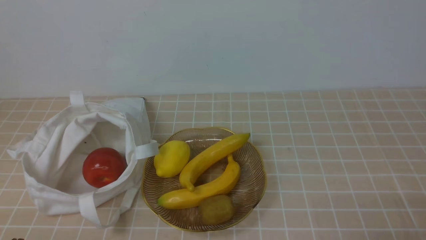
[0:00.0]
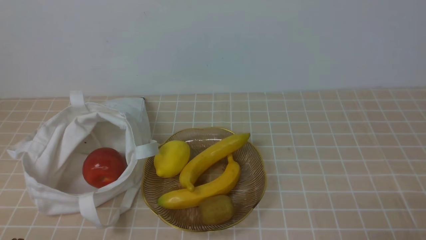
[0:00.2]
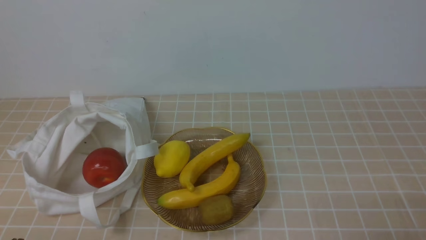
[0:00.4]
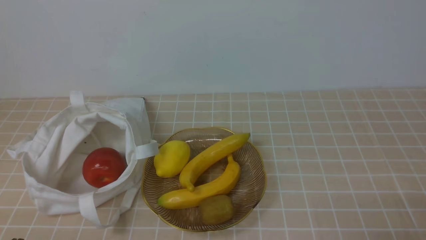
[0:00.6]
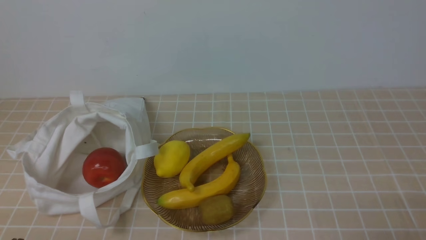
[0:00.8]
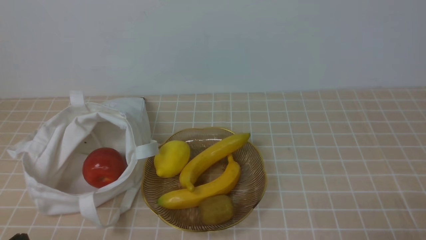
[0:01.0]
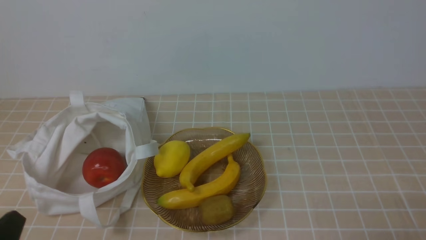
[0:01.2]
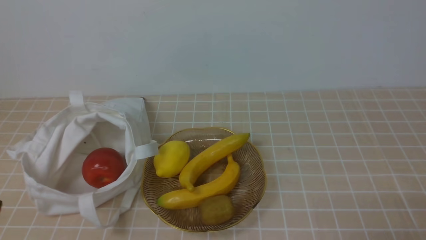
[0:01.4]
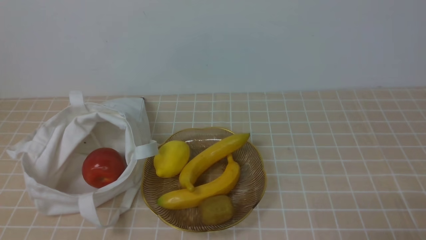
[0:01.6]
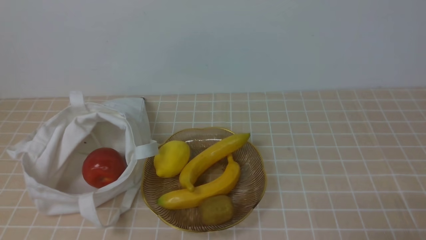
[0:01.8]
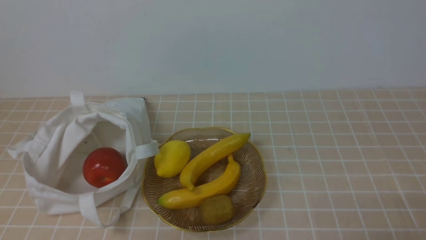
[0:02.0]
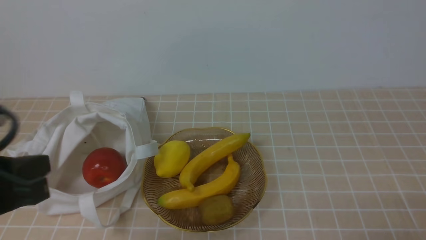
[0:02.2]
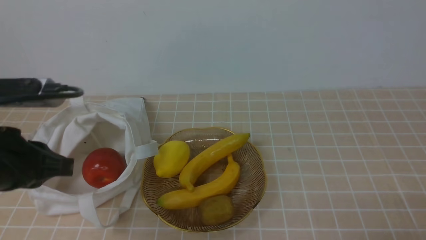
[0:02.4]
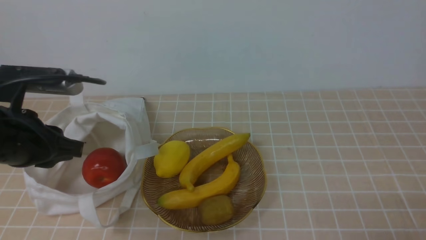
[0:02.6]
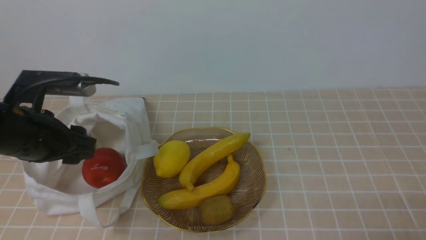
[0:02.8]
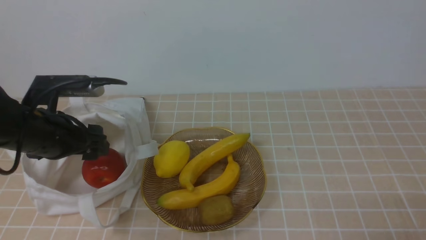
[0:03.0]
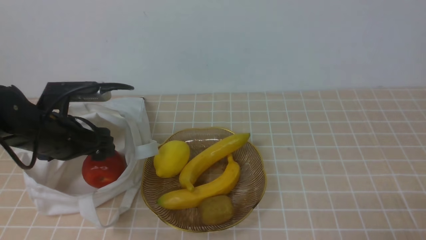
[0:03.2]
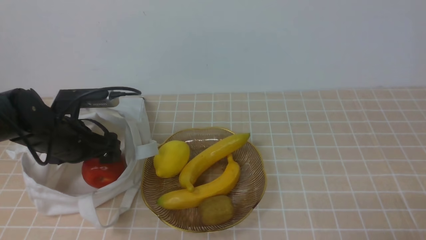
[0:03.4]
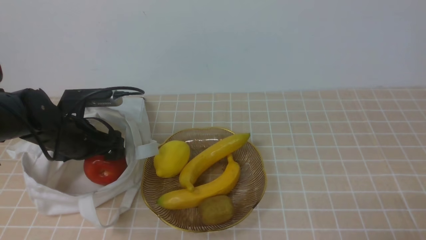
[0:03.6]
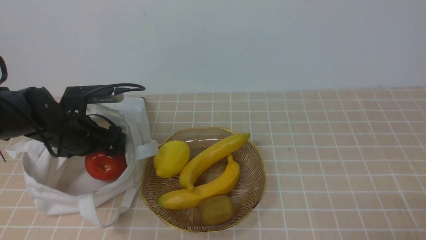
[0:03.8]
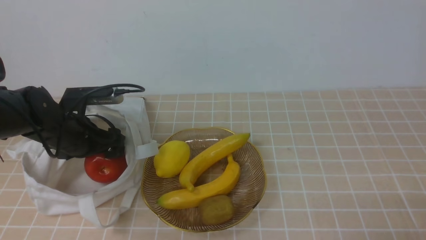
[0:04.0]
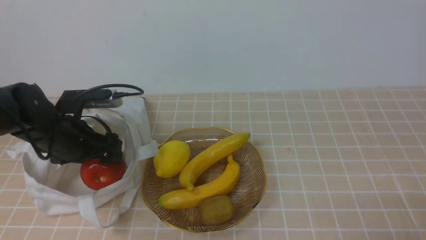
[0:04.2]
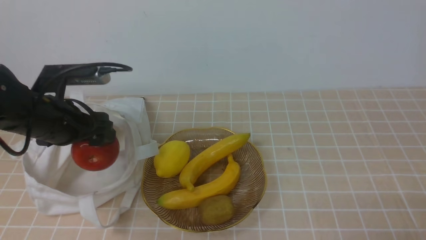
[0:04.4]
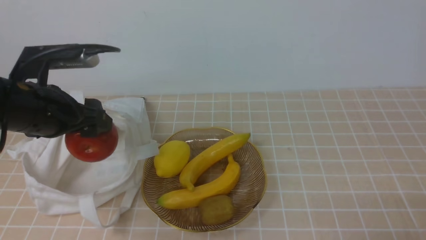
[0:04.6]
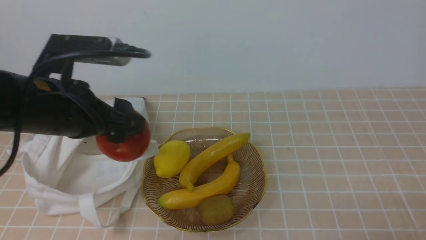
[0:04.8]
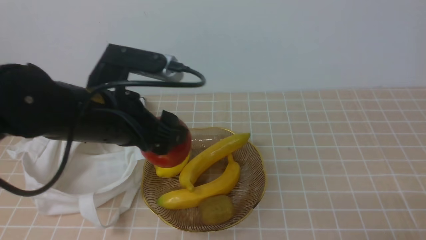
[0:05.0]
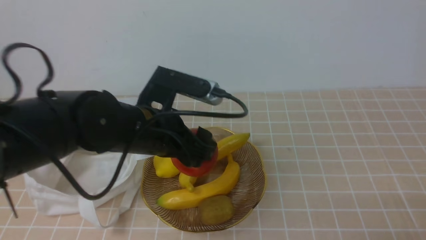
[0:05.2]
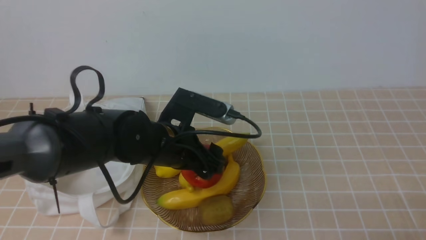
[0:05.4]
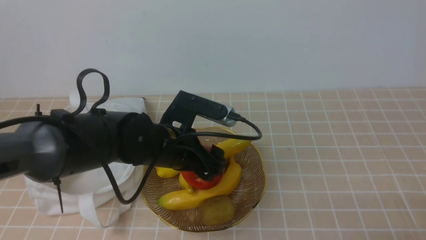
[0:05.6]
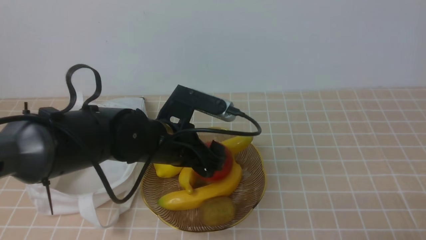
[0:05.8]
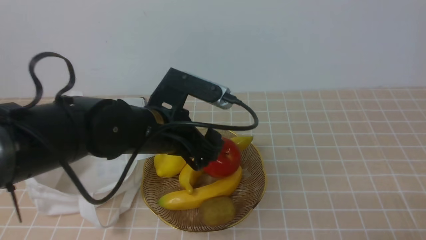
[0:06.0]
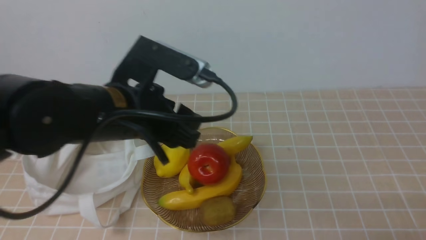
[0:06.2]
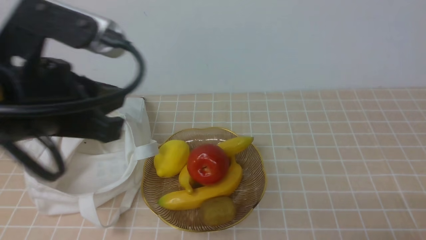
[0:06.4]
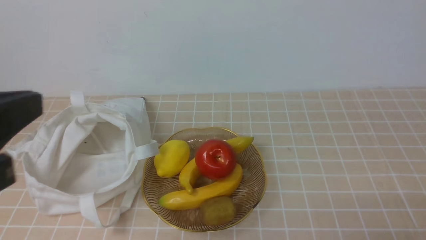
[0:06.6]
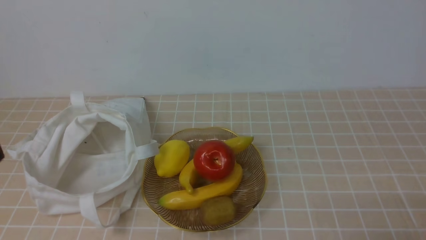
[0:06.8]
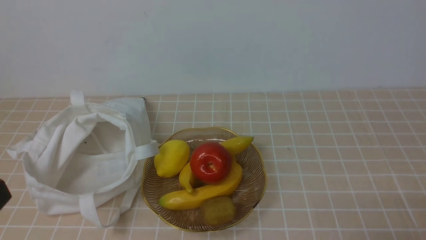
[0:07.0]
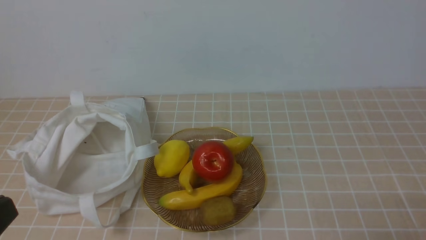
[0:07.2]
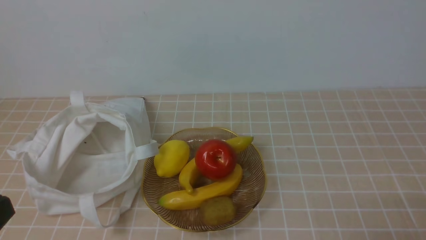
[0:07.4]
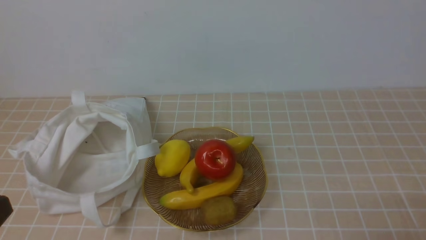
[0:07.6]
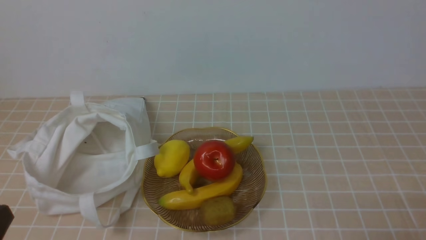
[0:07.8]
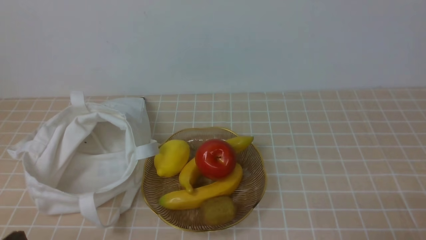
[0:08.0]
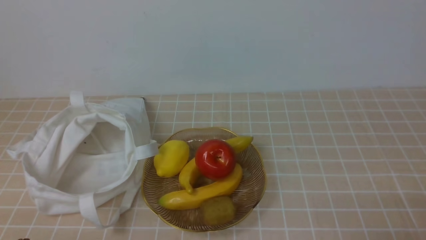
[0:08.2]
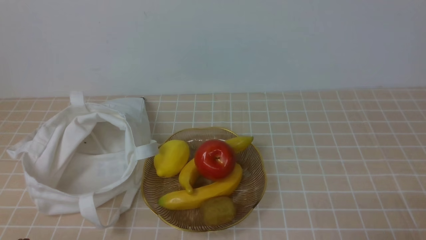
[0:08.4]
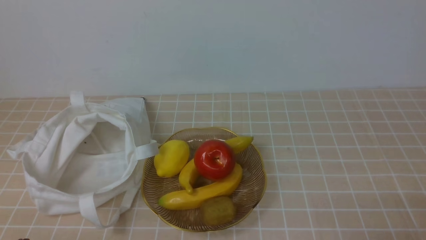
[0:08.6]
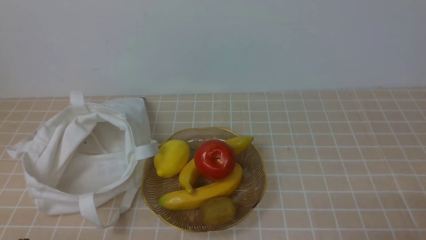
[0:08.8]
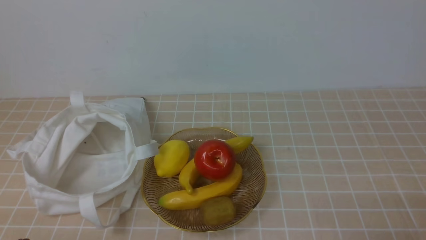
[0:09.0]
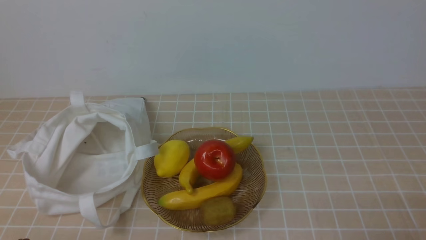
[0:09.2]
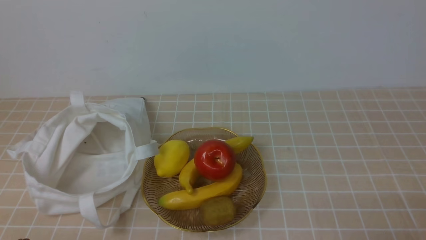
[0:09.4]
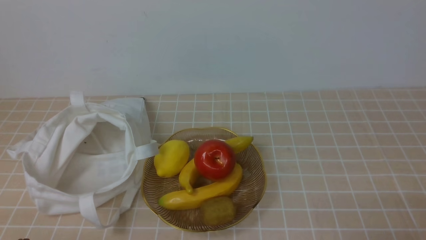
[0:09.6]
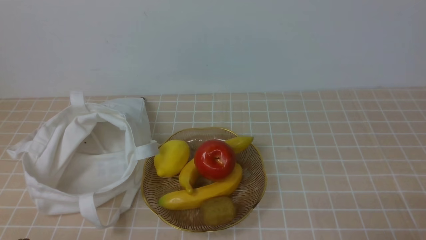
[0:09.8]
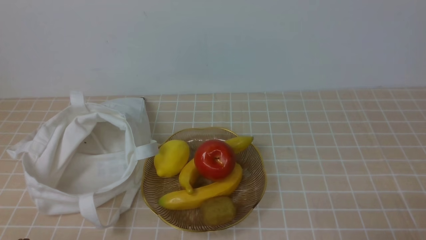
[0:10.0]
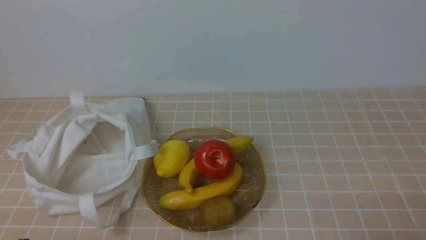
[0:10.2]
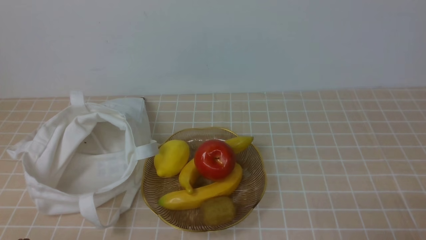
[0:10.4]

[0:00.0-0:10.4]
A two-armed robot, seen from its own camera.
Step, 0:00.0 to 0:04.0: use the left arm to grab an apple from the bag.
Step, 0:04.2 to 0:05.8: use the left arm to put the apple into the empty plate on the right.
0:01.4 to 0:03.0: The left gripper moves forward, roughly 25 cm, and opens its fingers.
0:04.4 to 0:06.0: The left gripper goes some 15 cm to the right.
0:06.0 to 0:07.4: The left gripper moves backward and to the left, some 30 cm, and closes up.
0:09.0 to 0:10.4: The two grippers keep their place.

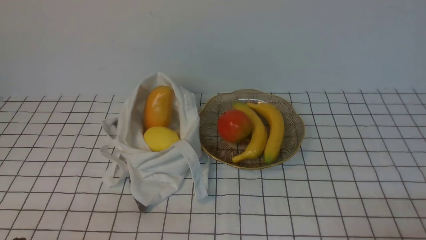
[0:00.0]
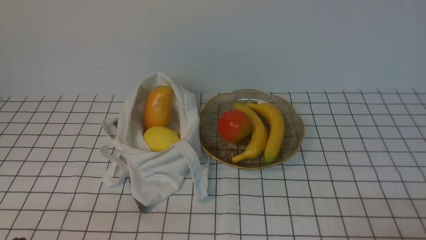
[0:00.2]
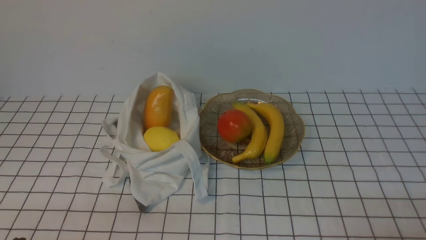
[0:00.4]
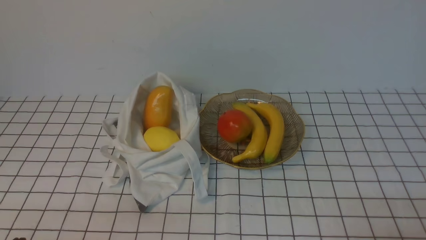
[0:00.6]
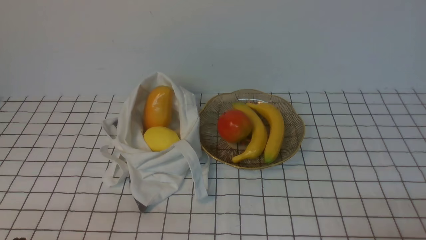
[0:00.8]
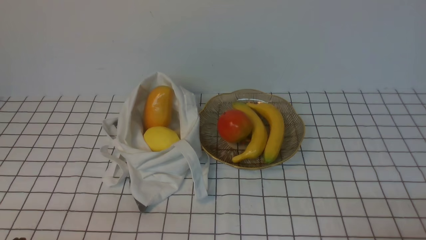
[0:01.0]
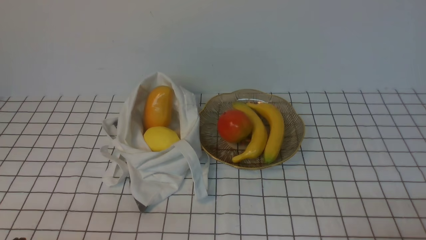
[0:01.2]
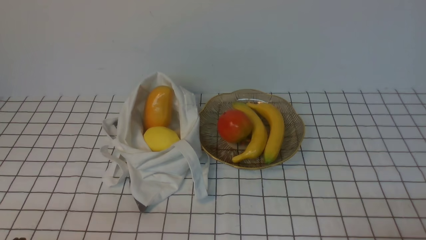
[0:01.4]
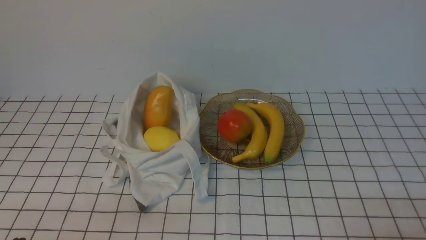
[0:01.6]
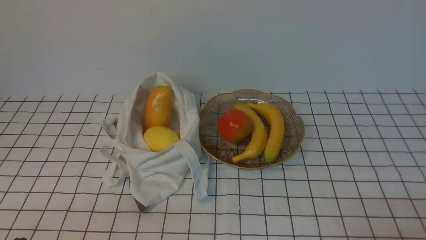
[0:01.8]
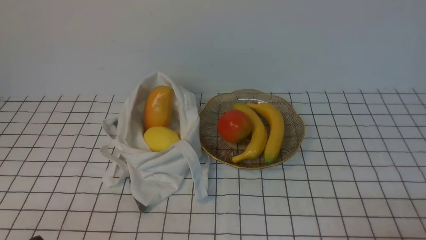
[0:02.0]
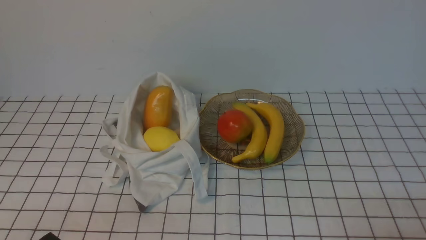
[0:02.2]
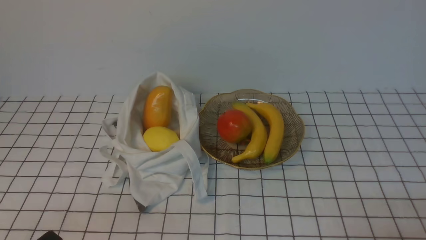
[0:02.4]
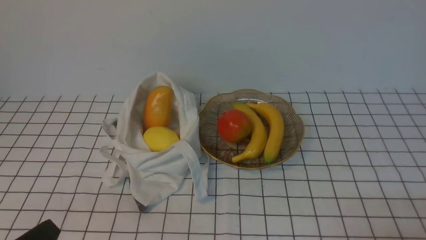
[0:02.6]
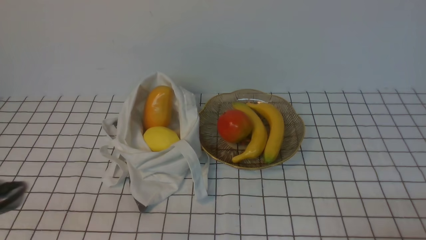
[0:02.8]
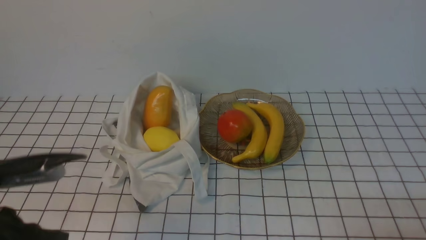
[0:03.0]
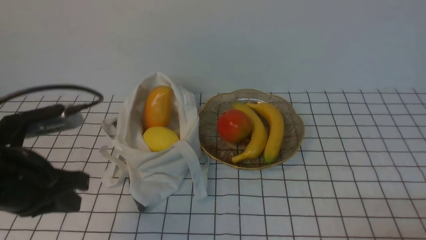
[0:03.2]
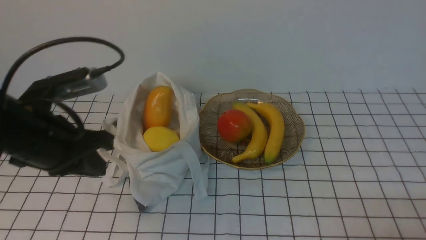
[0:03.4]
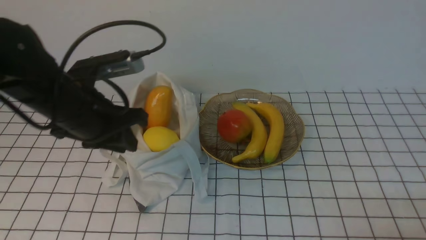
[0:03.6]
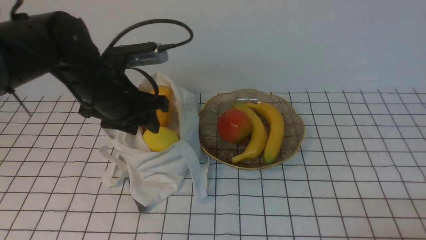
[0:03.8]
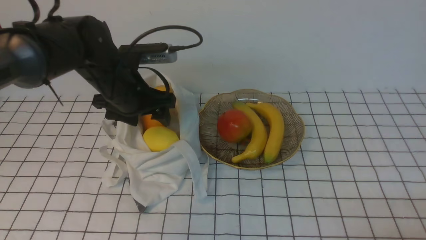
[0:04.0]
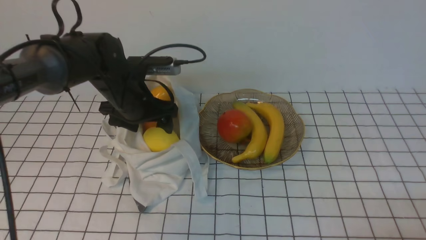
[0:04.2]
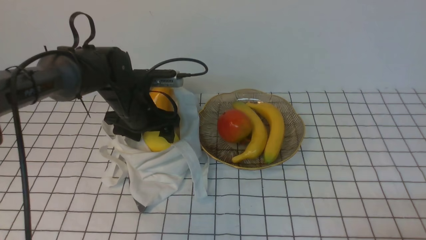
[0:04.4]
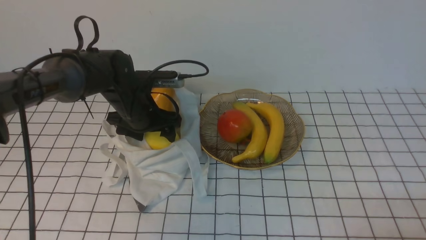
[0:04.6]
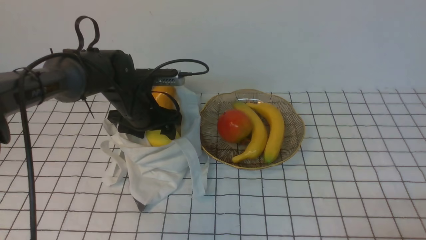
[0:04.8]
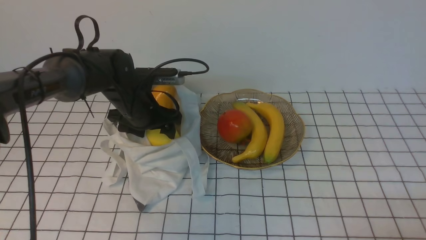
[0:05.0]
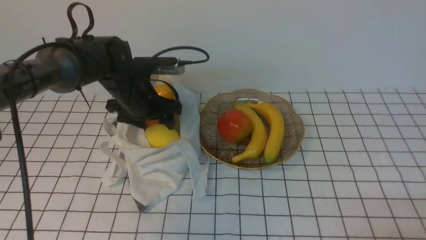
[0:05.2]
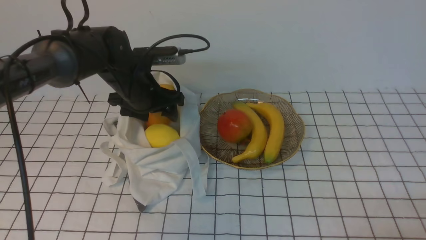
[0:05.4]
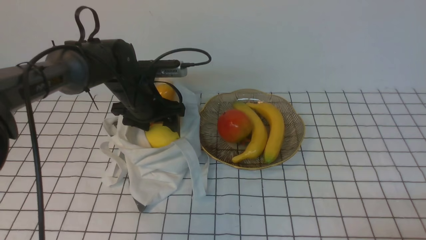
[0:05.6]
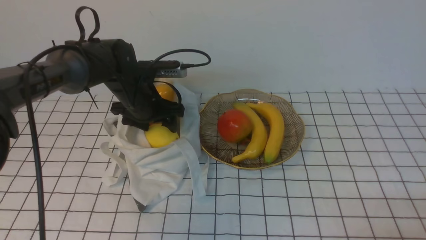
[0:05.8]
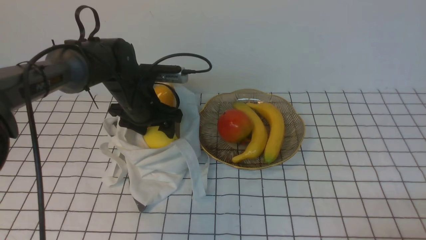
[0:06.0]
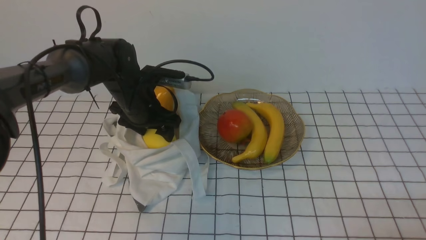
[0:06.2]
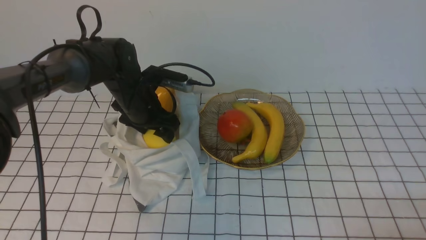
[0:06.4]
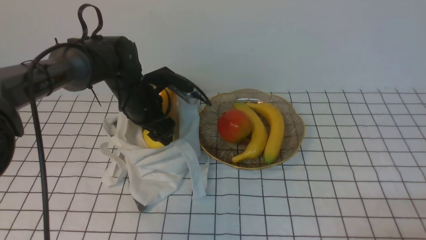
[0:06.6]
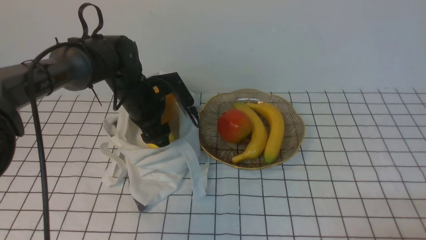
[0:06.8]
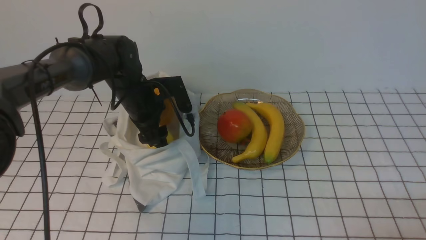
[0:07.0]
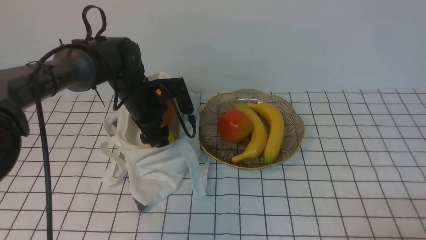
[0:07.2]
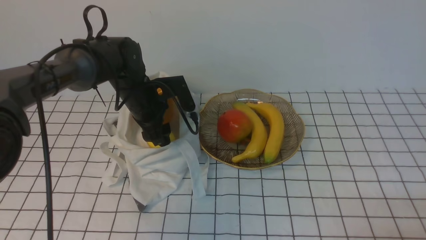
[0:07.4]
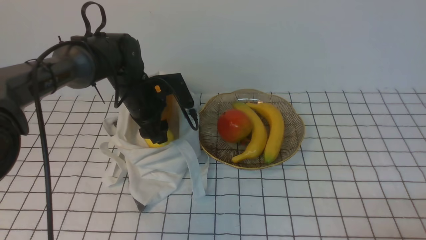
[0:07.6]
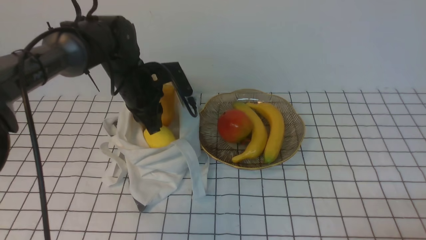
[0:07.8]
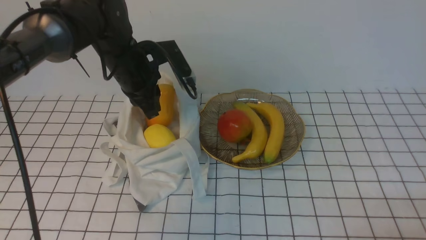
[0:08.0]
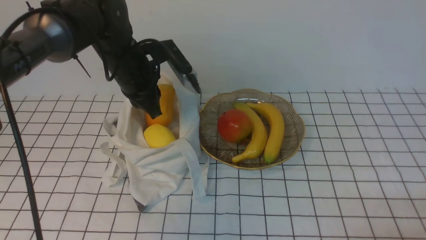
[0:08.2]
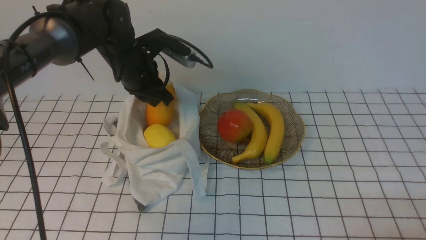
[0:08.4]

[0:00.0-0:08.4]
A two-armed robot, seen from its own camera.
0:01.4 to 0:02.8: The left gripper goes approximately 5 cm upward.
0:02.8 to 0:04.2: The left gripper shifts roughly 35 cm forward, and opens up.
0:04.2 to 0:05.6: There are only small adjustments of the grippers.
0:07.0 to 0:08.4: The left gripper is displaced upward by some 5 cm, and closes its fingers.
